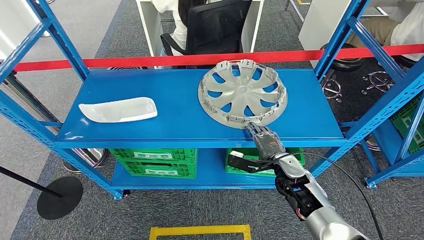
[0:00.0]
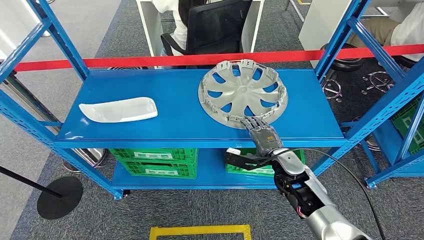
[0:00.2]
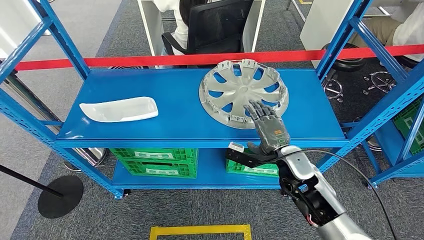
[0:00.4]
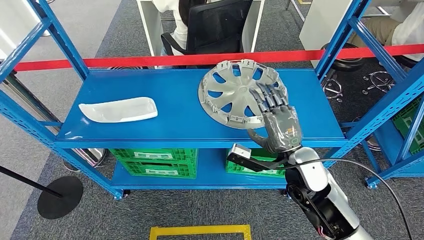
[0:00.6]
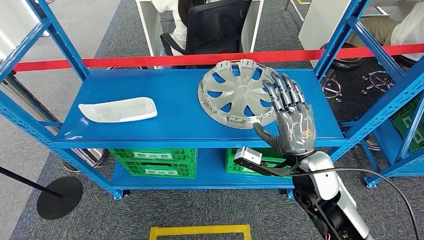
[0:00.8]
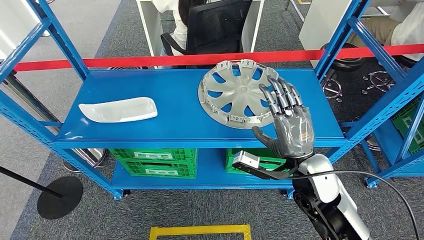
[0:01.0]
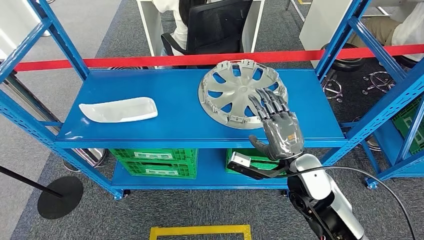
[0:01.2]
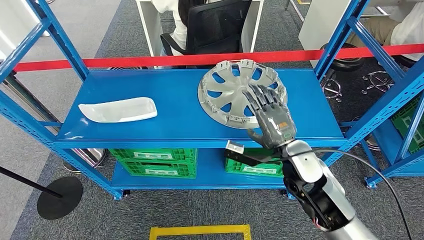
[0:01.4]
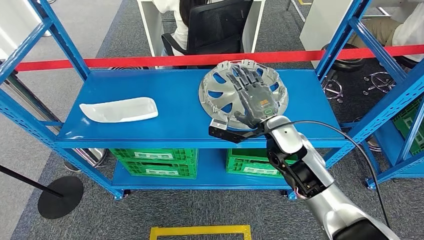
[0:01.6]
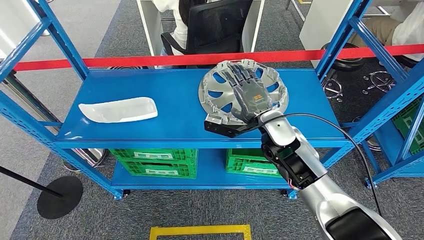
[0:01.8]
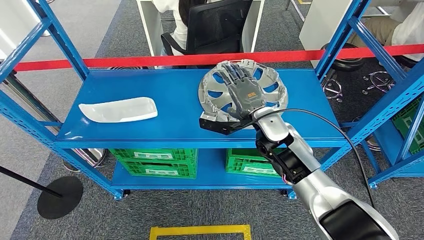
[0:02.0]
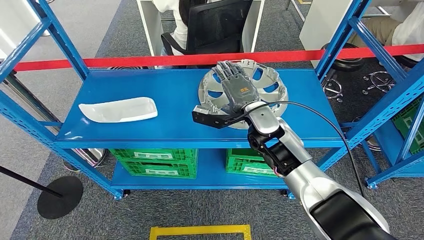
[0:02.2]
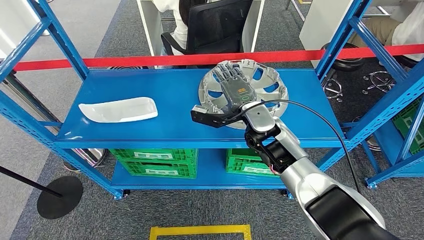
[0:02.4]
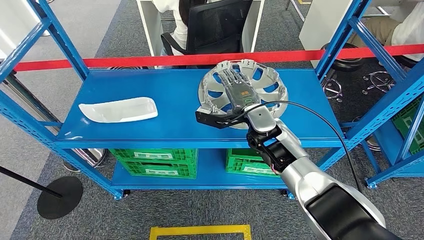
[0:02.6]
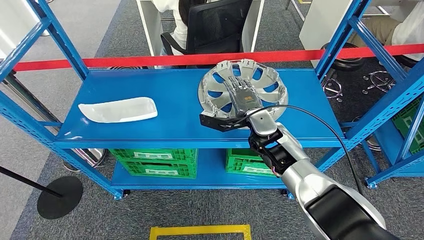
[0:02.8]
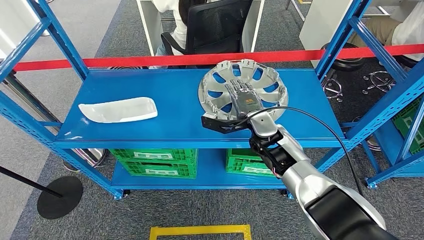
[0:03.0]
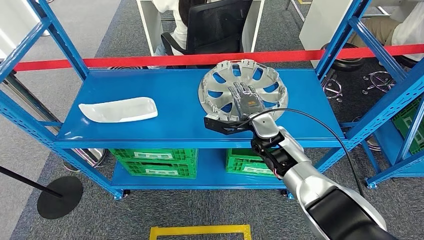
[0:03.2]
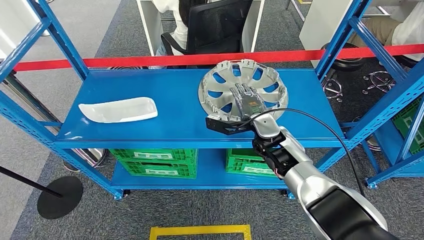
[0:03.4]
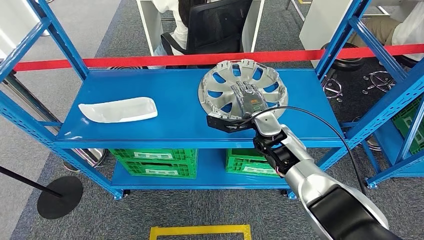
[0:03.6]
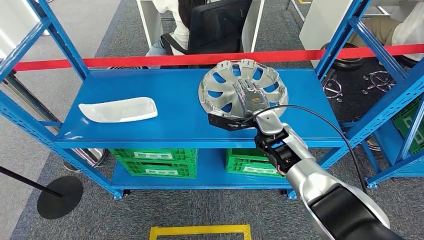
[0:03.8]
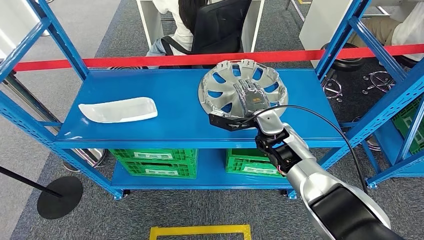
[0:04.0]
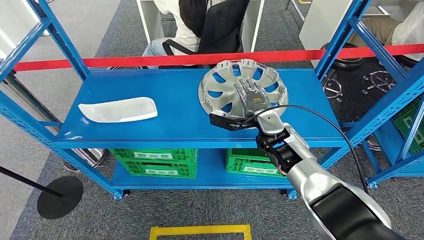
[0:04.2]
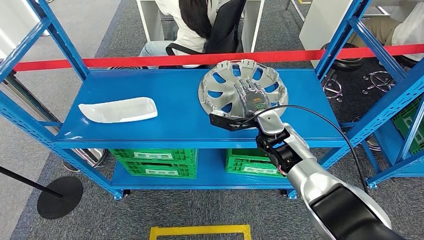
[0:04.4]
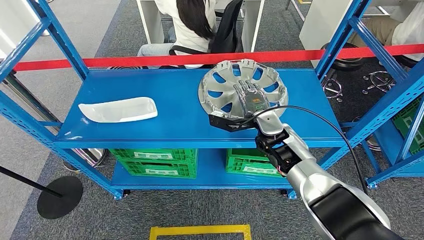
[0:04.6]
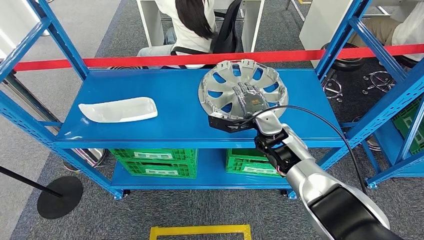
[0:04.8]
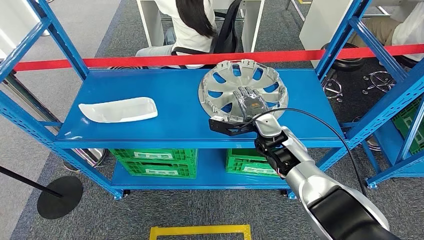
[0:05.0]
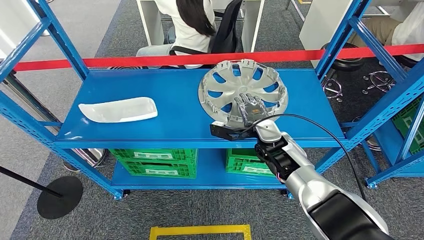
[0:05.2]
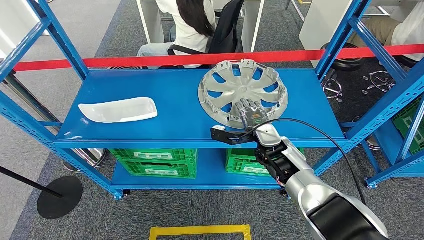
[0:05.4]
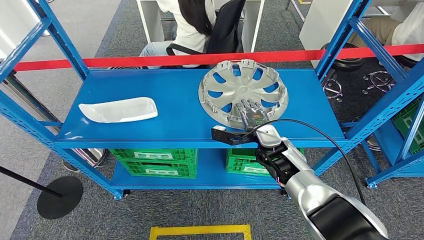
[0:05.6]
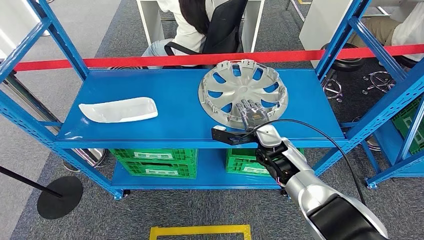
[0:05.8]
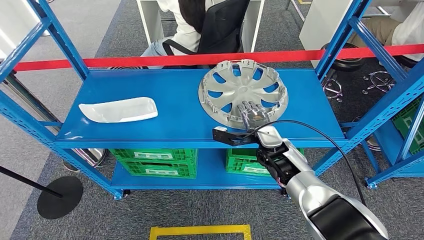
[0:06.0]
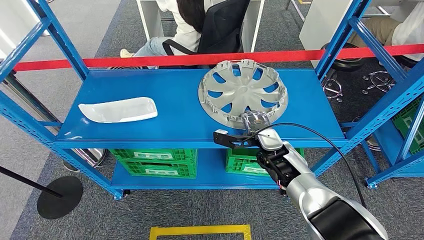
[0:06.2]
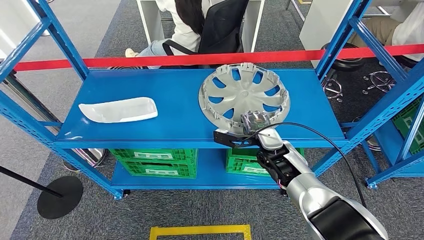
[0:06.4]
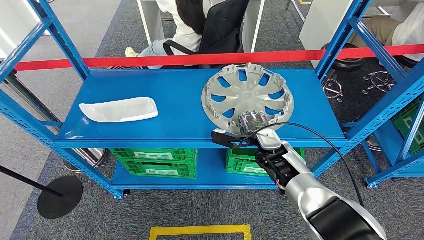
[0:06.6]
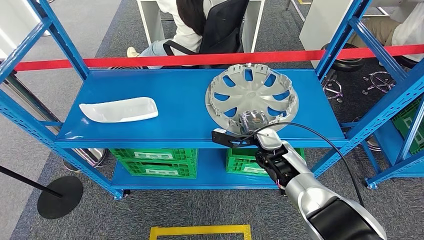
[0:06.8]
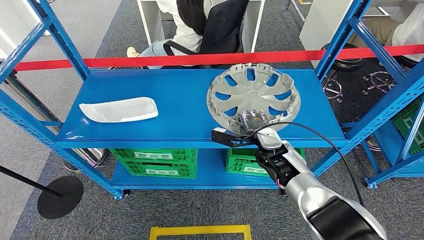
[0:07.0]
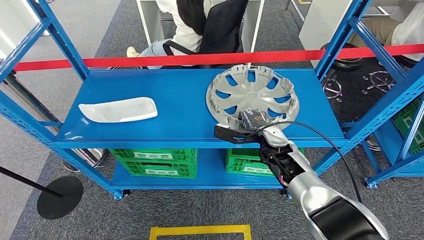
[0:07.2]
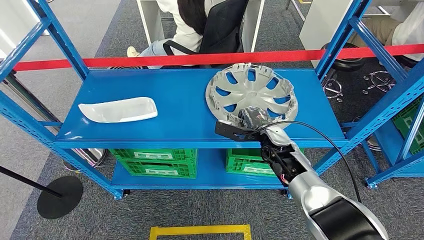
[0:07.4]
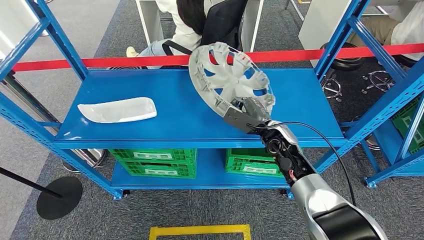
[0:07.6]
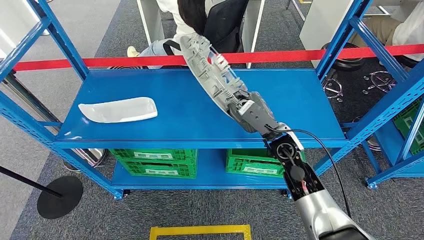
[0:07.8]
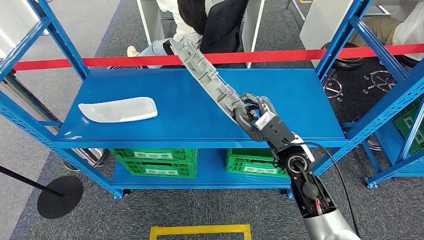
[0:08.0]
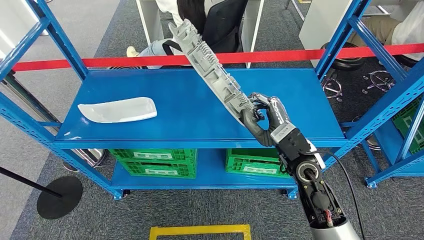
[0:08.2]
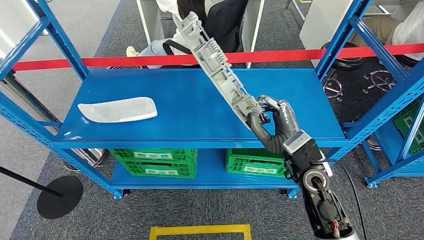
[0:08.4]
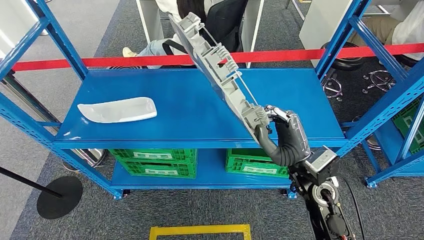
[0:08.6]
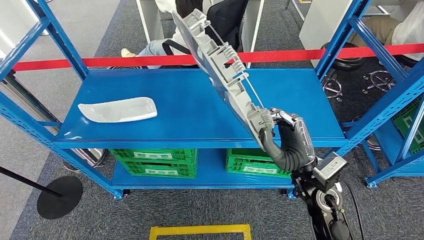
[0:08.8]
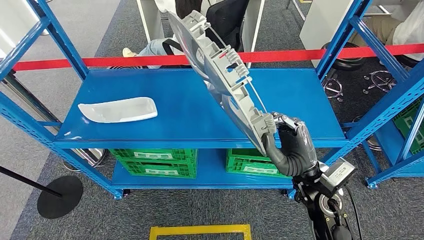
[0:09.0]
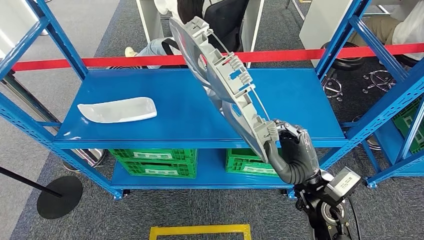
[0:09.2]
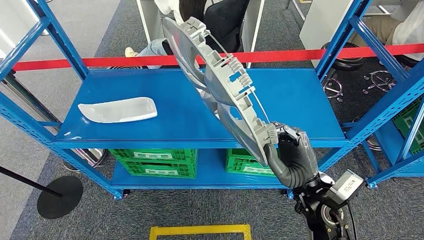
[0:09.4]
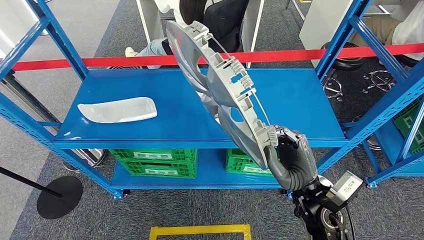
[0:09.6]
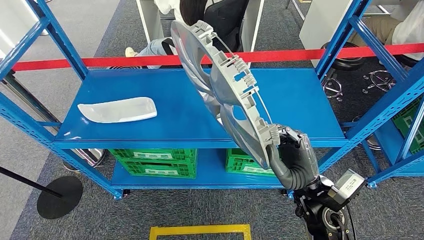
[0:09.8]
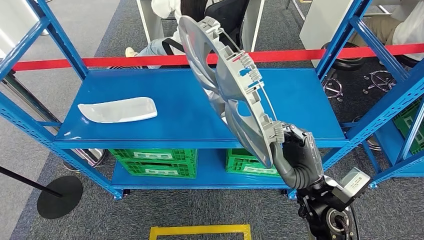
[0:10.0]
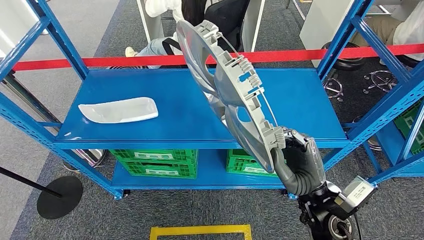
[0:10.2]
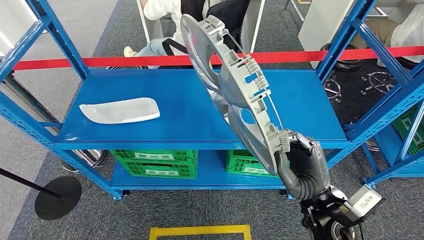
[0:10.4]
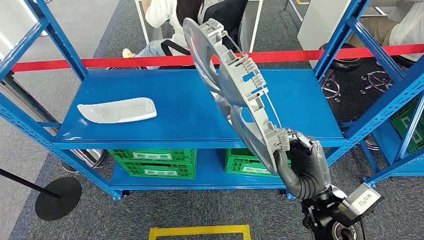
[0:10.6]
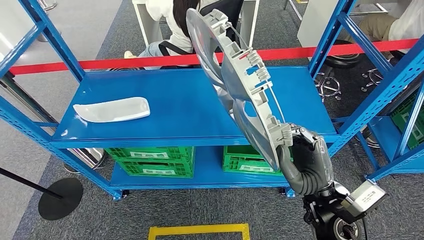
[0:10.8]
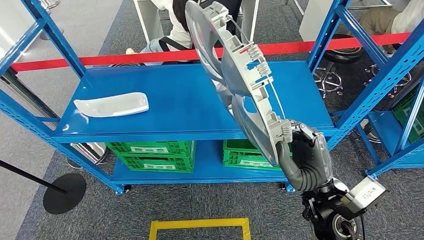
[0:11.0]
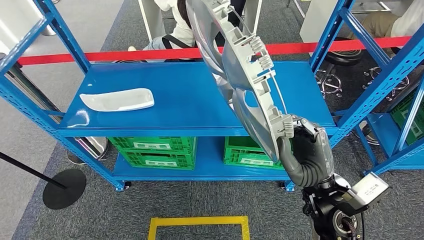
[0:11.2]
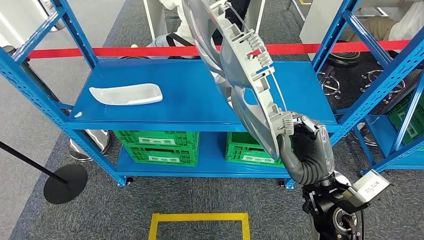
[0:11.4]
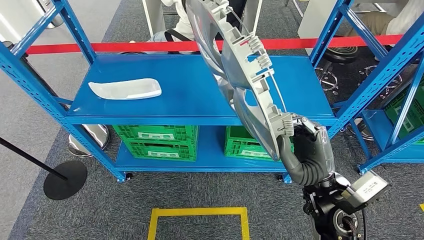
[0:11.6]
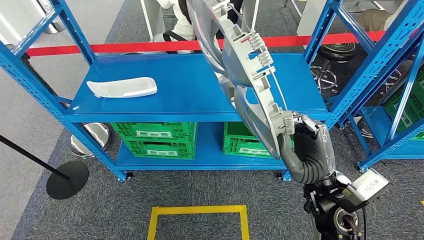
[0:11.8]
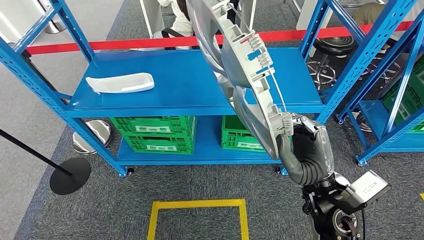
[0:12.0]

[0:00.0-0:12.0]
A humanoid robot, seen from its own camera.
Step, 0.0 to 8.0 s: Pick up the large material from the shelf.
0.0 to 1.6 s: The right hand is displaced upward, forward and to the left by roughly 15 cm.
3.0 to 4.4 s: There are only small adjustments of the hands.
4.4 to 6.0 s: The right hand shifts by approximately 5 cm.
7.6 to 9.0 s: The right hand travels backward by about 10 cm.
9.0 to 10.4 s: The hands make only small movements.

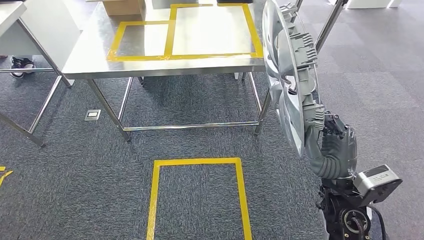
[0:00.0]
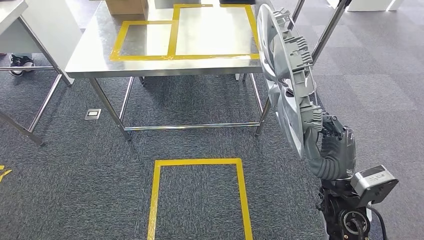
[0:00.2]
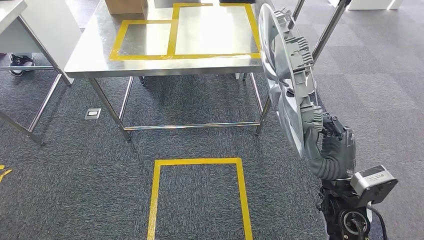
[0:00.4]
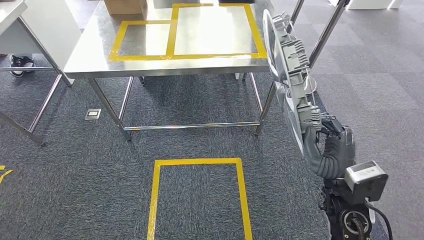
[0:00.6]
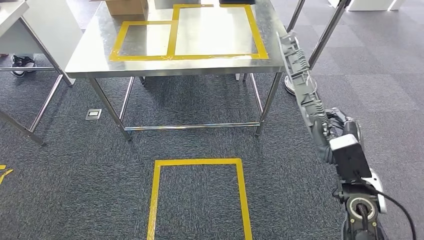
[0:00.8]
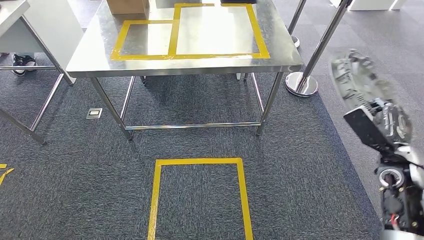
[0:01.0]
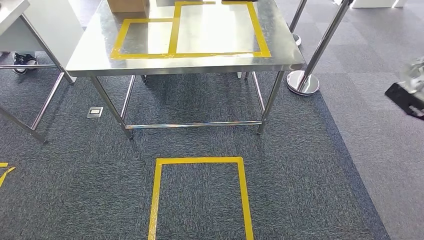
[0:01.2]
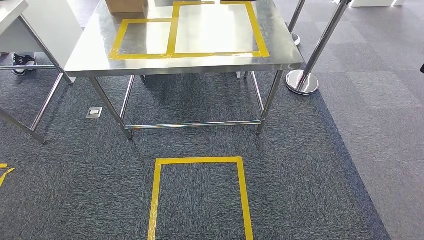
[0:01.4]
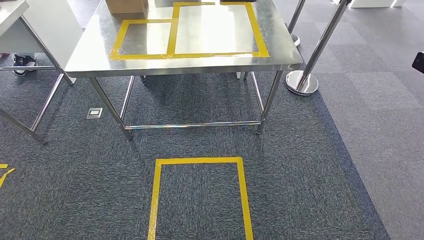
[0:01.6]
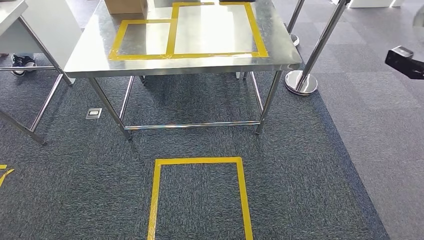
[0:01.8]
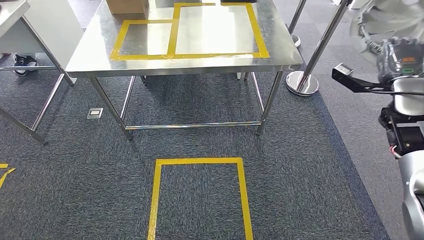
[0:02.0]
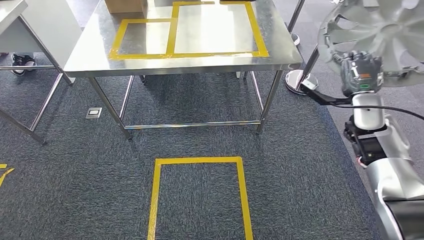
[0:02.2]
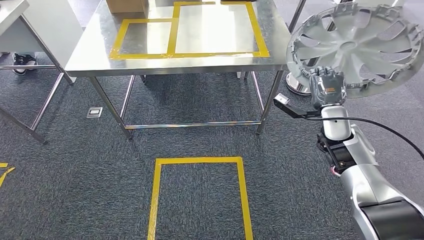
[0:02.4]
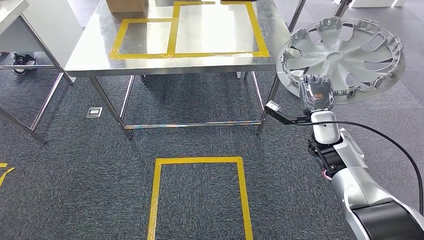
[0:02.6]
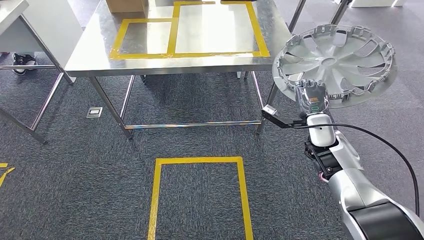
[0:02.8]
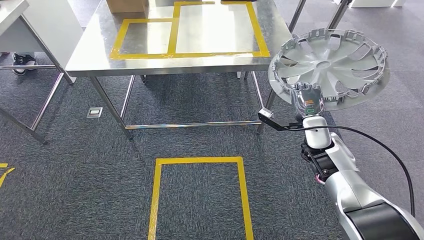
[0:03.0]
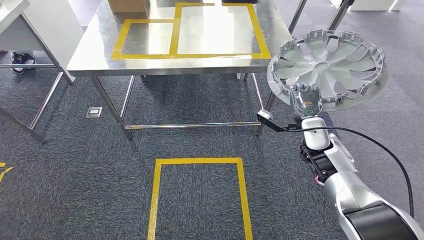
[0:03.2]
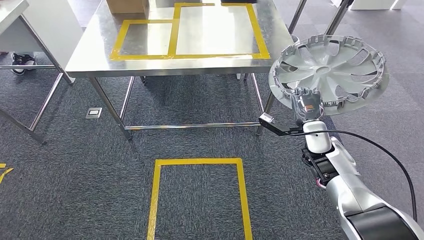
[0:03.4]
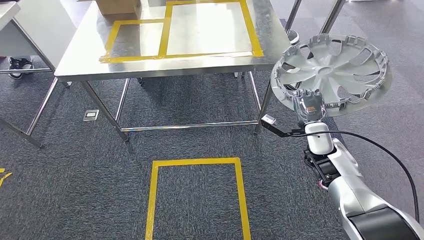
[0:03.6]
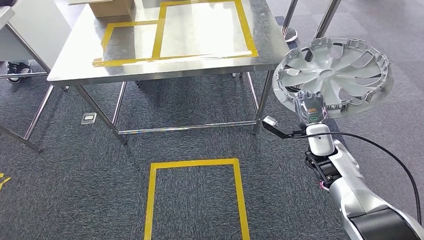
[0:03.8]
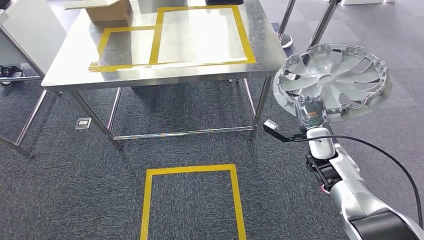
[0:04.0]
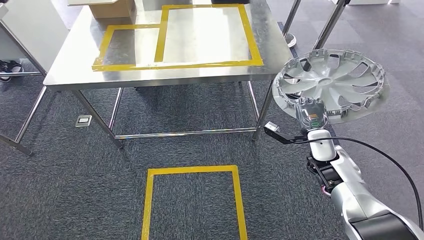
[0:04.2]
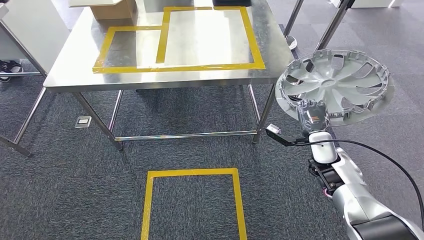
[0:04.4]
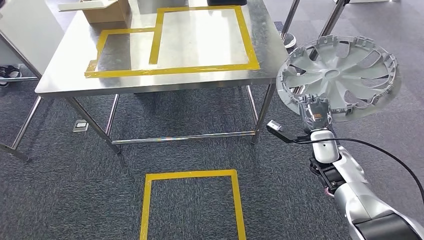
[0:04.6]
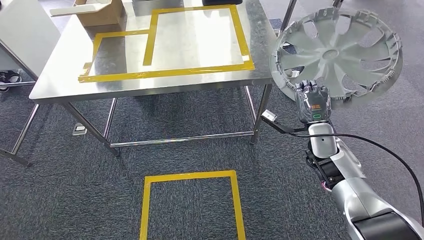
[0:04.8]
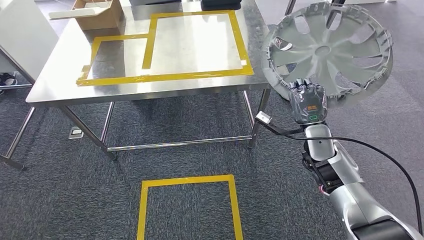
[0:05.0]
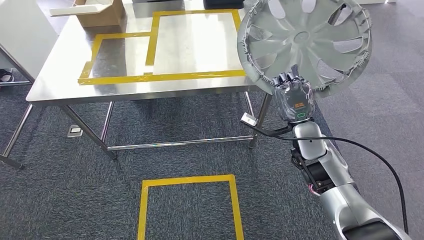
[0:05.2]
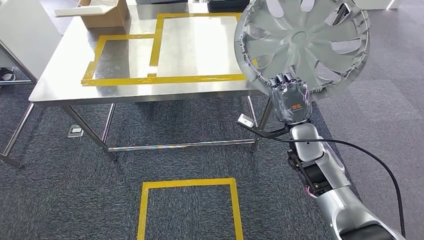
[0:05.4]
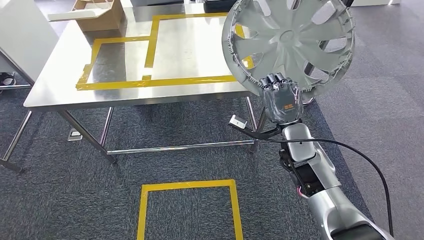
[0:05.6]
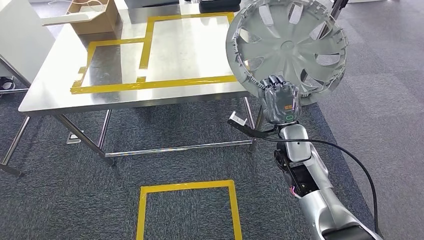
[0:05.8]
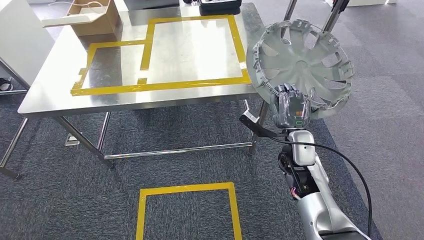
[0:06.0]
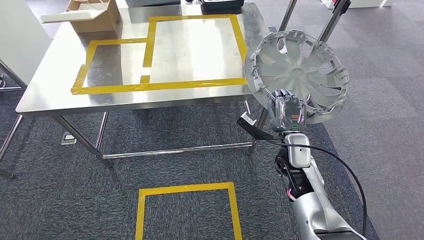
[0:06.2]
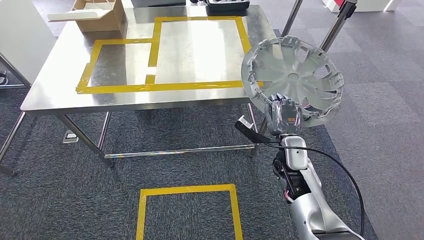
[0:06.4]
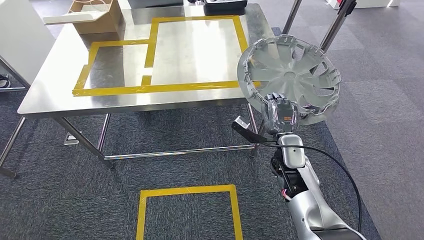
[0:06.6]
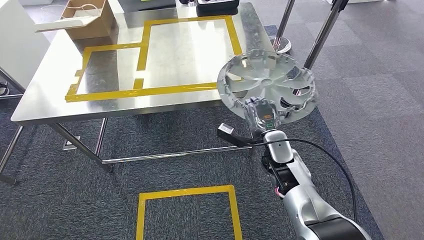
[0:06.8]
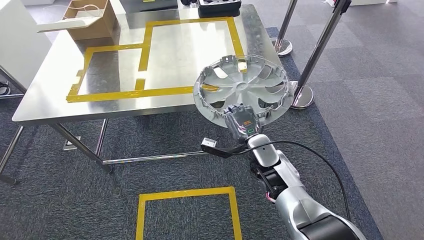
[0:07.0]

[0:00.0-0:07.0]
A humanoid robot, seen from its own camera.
0.0 to 1.4 s: The right hand moves to the right and upward, approximately 40 cm.
1.4 to 2.8 s: The right hand moves to the left and downward, approximately 30 cm.
